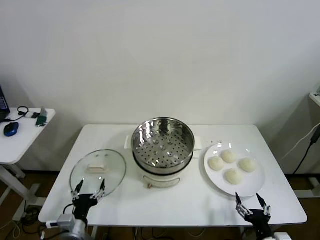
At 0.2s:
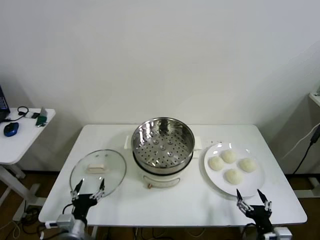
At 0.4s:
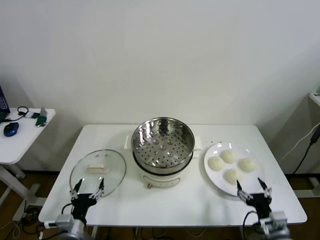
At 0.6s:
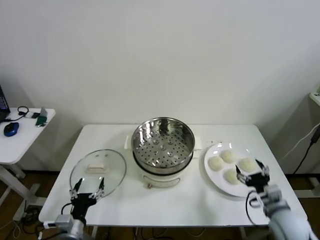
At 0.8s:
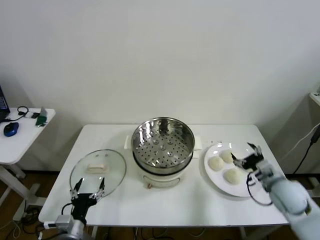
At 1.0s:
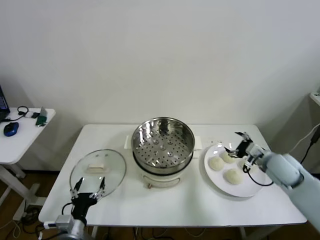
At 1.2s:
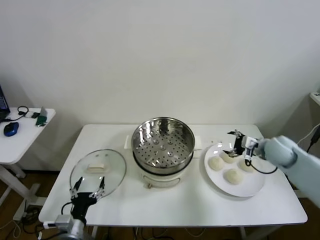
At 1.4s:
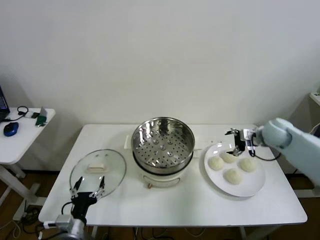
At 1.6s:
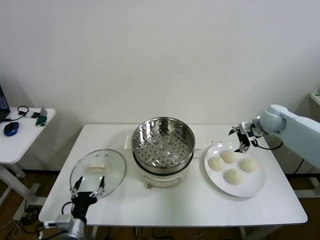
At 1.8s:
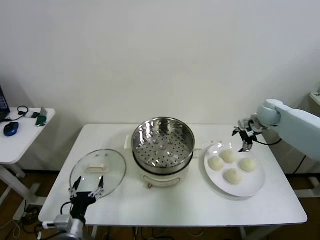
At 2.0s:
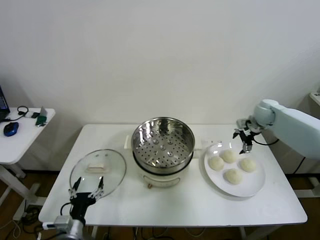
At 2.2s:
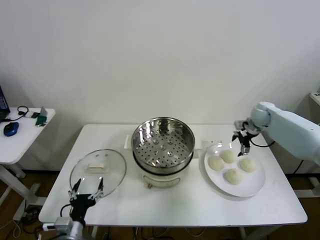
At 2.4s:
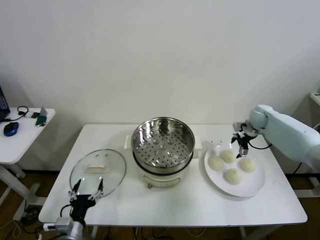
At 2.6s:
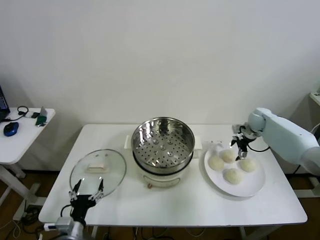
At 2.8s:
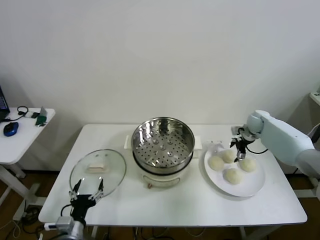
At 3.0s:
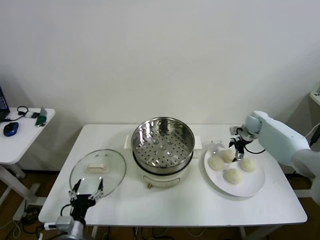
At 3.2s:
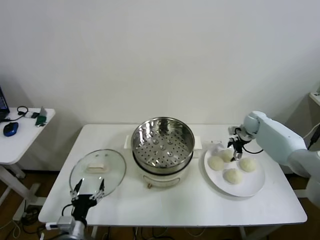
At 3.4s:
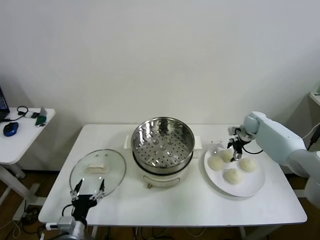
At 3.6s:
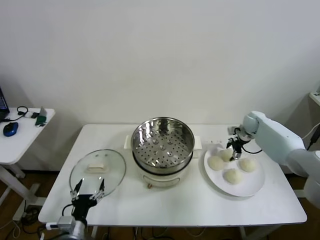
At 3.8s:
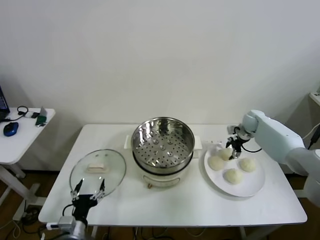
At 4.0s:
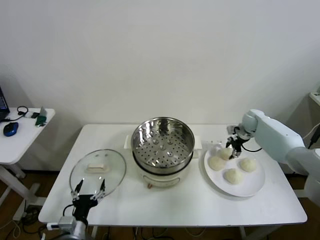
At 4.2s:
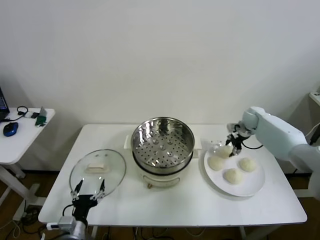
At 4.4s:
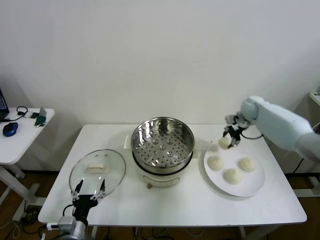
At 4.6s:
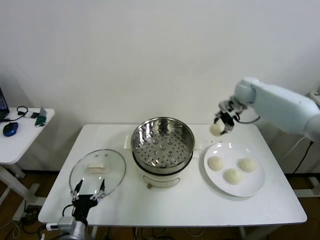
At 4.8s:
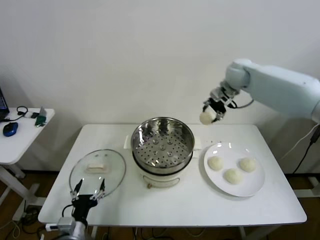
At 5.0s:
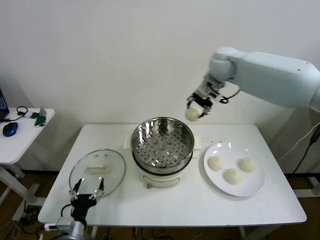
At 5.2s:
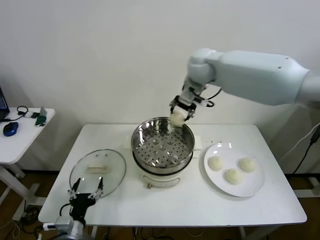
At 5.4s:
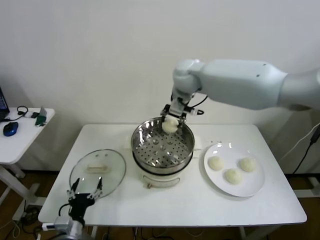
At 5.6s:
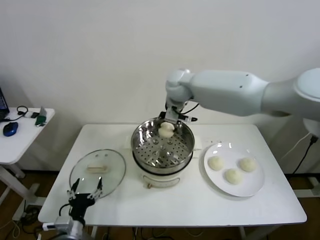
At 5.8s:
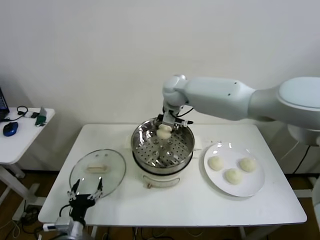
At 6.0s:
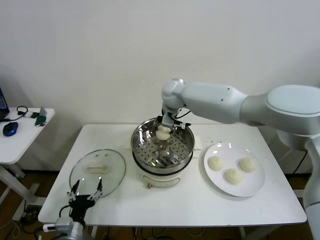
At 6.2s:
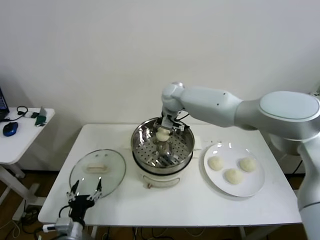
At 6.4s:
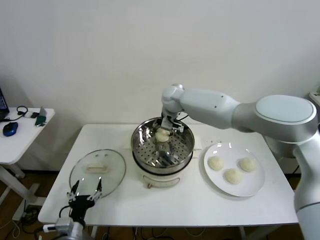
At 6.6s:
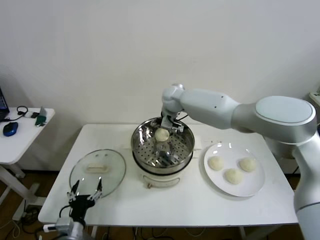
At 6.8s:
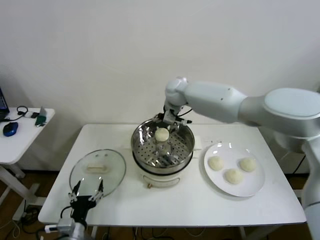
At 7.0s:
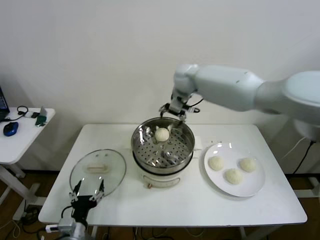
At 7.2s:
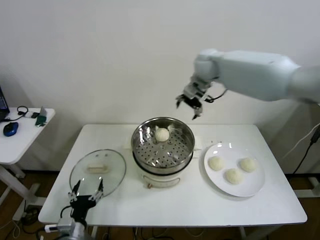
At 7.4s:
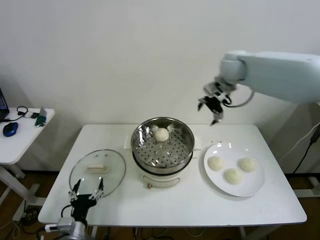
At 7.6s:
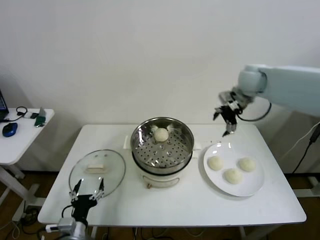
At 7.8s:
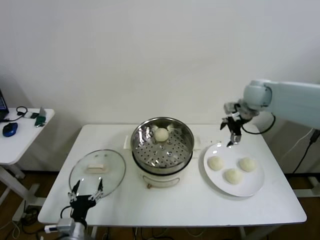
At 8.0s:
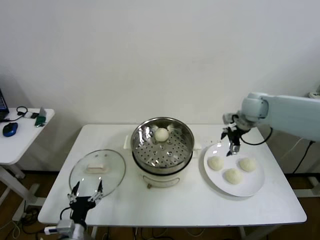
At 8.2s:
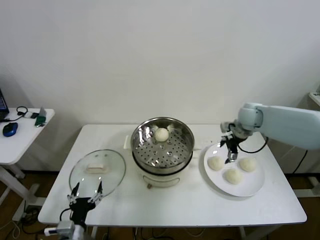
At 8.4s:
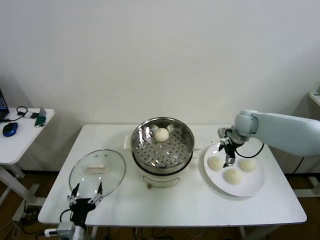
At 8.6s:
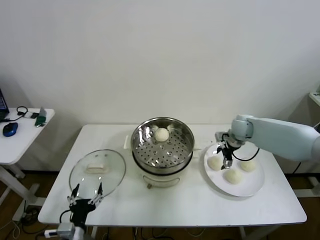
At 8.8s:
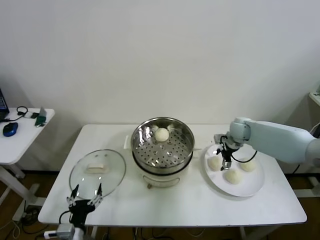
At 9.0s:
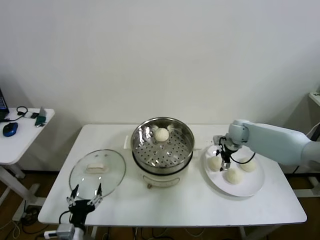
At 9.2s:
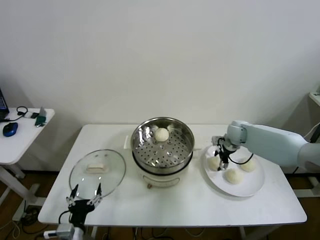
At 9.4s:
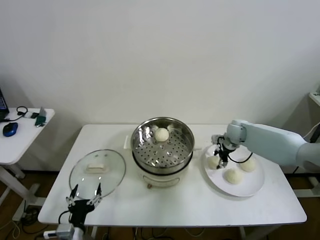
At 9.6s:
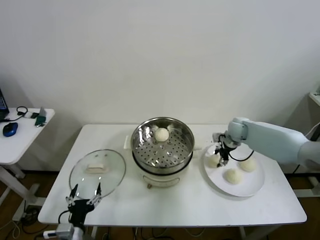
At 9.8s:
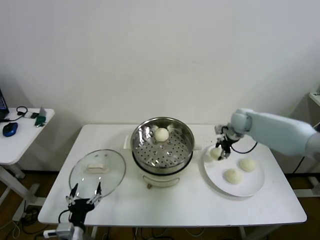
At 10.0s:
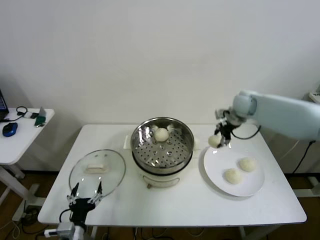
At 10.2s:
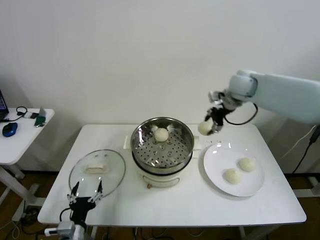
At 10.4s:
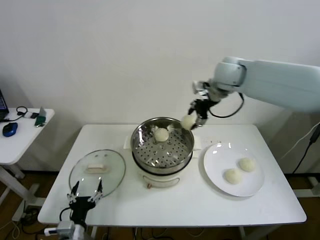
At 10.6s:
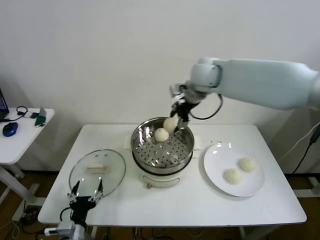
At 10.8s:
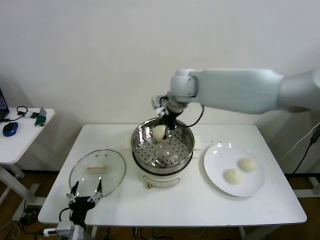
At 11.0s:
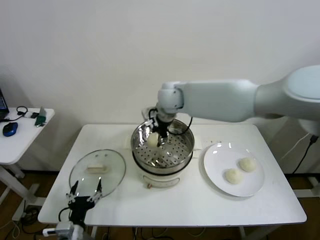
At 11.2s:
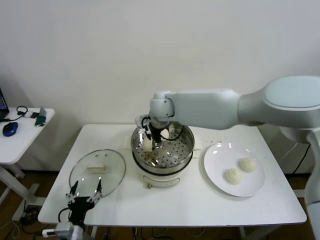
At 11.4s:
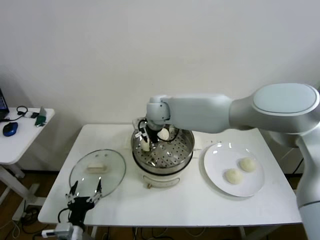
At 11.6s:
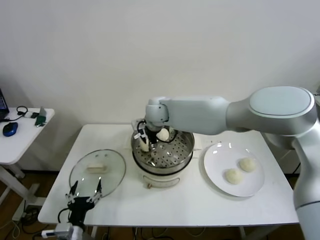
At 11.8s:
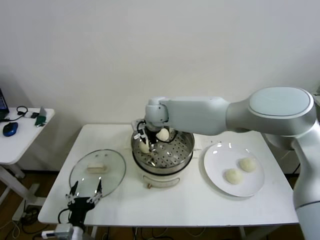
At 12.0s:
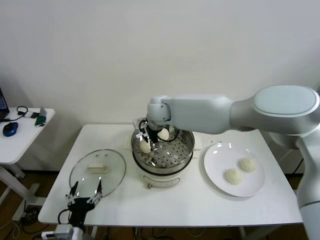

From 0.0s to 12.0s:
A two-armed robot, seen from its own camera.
Step, from 0.0s to 3.8s: Grasp the baozi in the plate with right gripper.
Step, from 4.0s to 6.6s: Place the baozi on the steamer with right gripper.
Step, from 7.0s to 9.2s: Grasp the baozi in the plate with right gripper.
Step, from 9.4s to 11.8s: Place the baozi on the steamer with right gripper.
From 1.6s to 3.0s: The right gripper shifts some 10 cm downward and forward.
From 3.0s to 4.4s: The right gripper goes some 10 cm upward, and closes up.
From 4.4s to 6.0s: The right gripper is displaced to the left by some 30 cm.
From 6.0s to 7.6s: The right gripper is displaced to the right by roughly 25 cm, and opens its fingers.
From 7.6s to 9.0s: The right gripper shifts some 20 cm downward.
From 9.0s to 10.4s: The right gripper goes some 30 cm upward and to the left, and closes up.
From 10.4s to 12.0s: The right gripper goes approximately 20 cm to the left and downward, and opens.

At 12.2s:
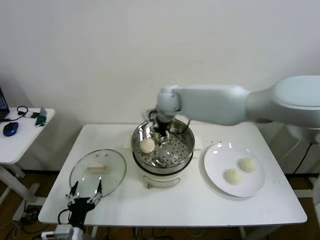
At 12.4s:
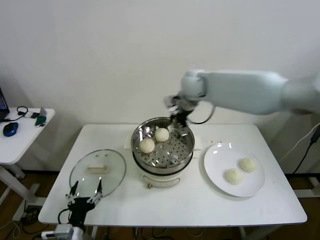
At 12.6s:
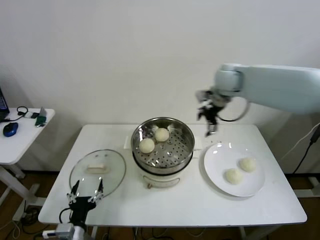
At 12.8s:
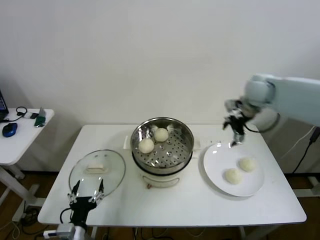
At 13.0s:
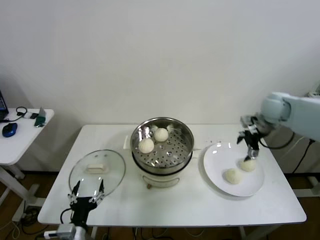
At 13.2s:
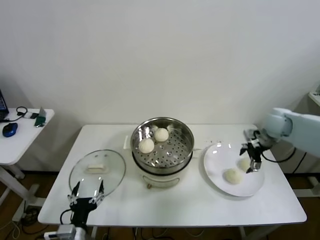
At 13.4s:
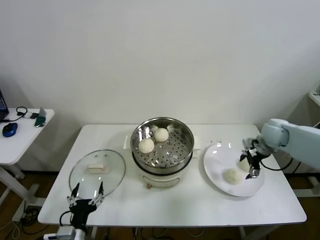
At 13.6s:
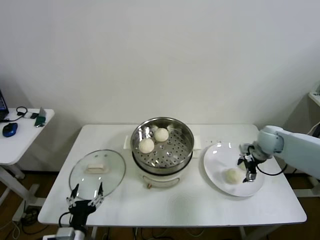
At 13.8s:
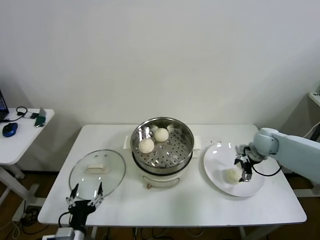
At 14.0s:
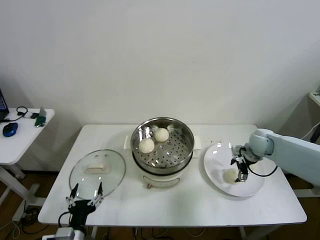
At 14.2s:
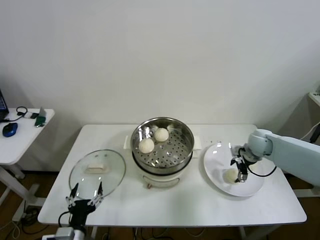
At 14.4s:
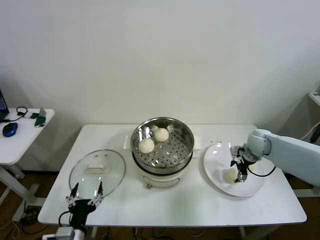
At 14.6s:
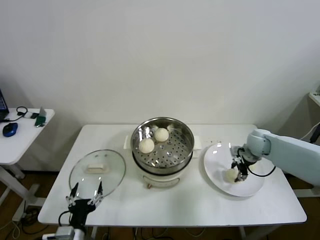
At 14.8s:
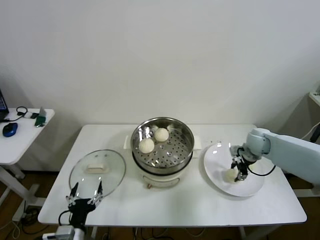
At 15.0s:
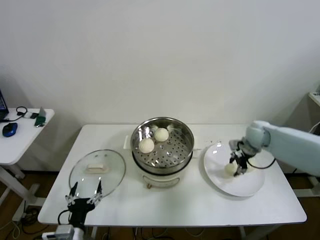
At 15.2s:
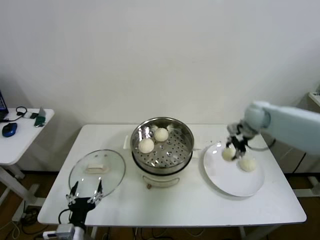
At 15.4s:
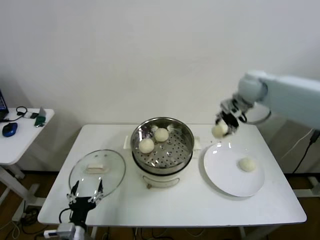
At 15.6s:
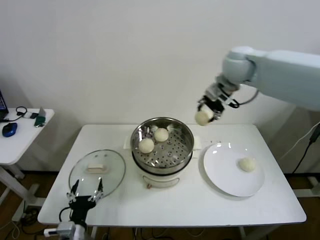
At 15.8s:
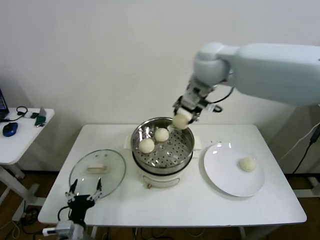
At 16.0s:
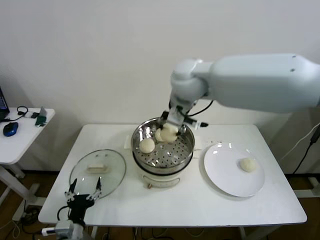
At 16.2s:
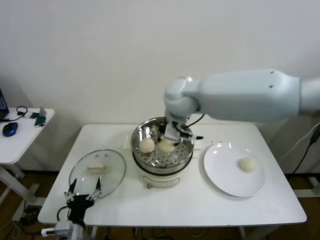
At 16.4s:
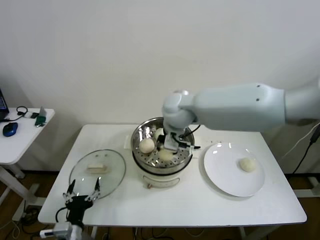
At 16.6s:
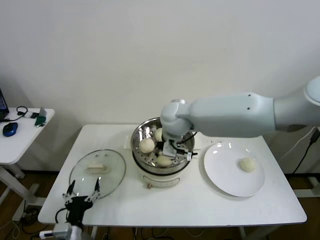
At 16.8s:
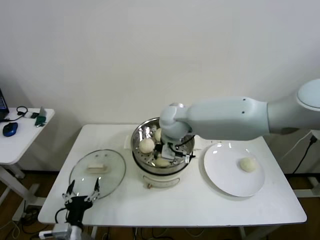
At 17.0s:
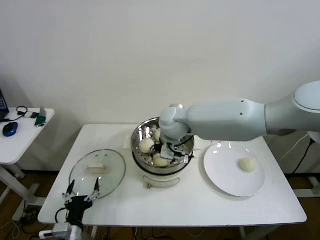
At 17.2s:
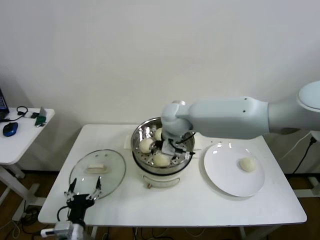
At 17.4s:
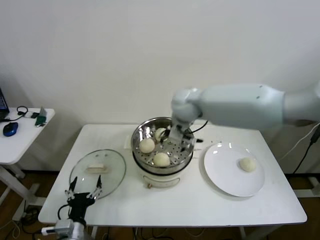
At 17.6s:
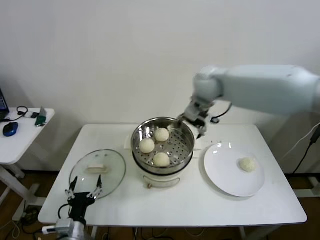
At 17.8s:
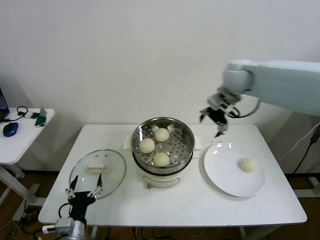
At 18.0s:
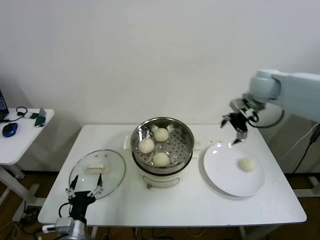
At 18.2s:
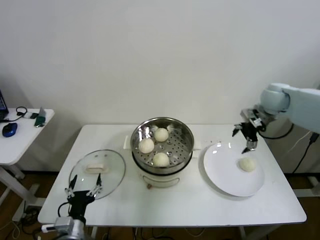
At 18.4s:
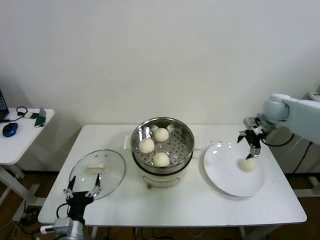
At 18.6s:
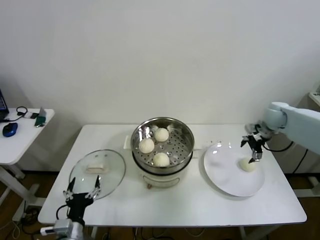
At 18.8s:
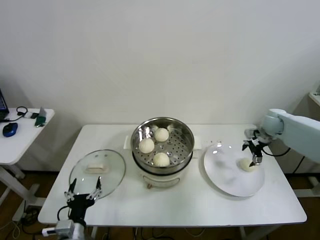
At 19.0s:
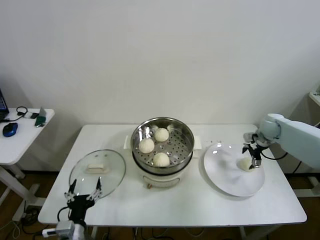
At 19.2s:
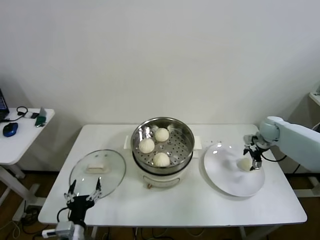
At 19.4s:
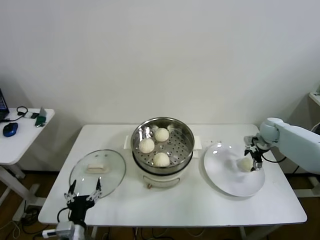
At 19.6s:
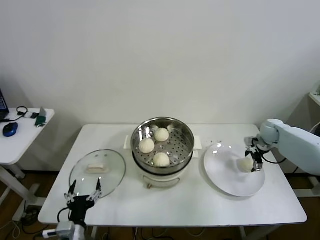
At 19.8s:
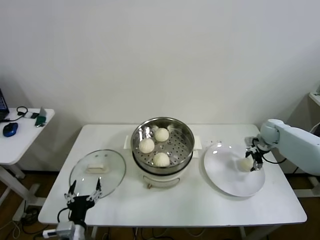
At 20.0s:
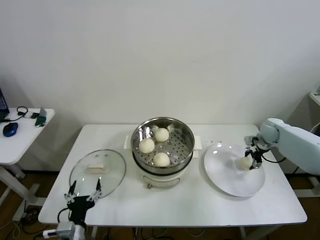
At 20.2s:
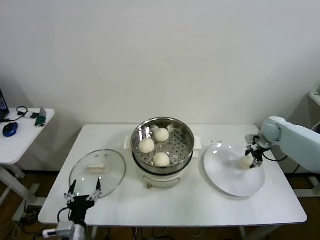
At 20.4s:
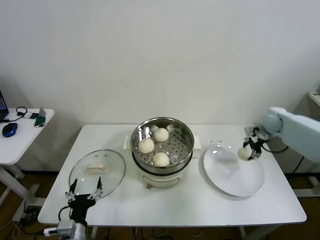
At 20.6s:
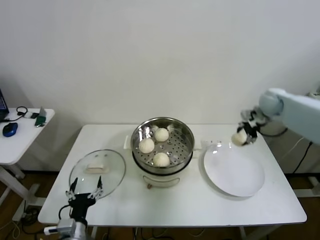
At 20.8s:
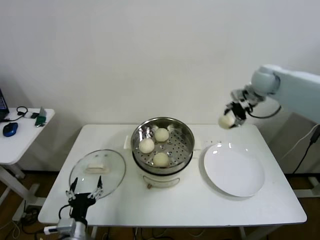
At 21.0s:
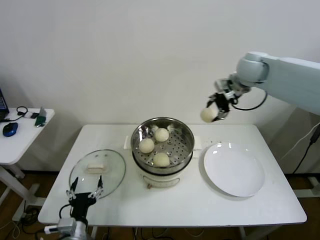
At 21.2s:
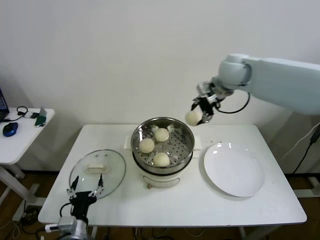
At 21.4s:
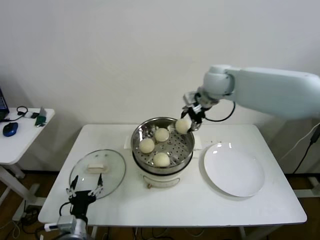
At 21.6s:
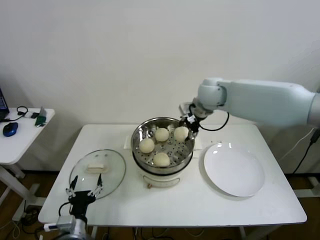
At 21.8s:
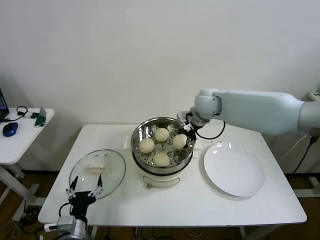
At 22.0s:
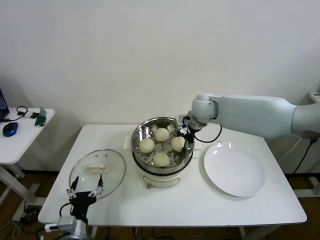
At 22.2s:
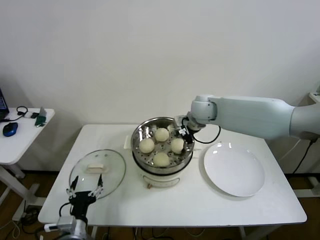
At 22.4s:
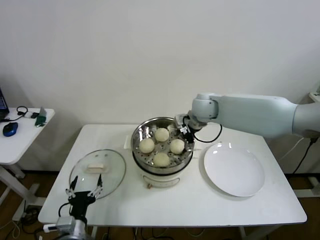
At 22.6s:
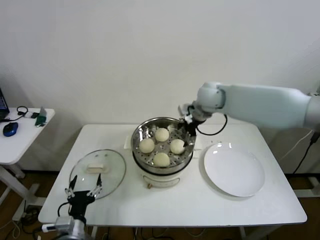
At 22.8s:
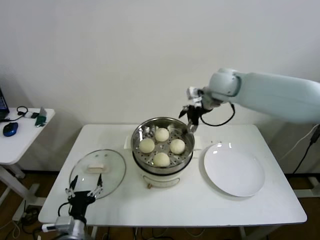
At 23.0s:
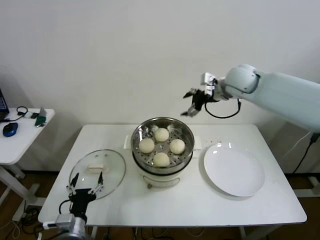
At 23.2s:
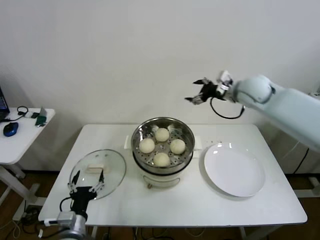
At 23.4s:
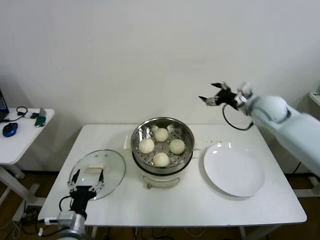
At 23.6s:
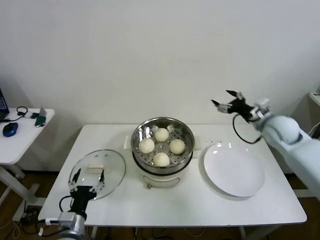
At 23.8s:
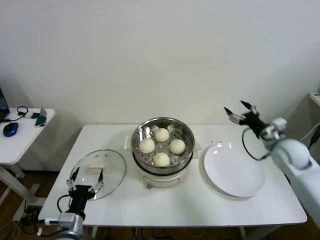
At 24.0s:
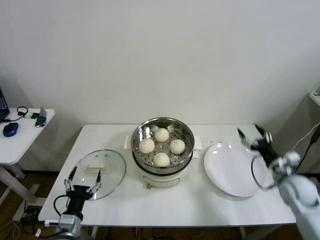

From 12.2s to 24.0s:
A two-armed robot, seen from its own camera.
Step, from 12.2s to 14.6s: Grasp the baozi in the plate with right gripper.
Step, from 14.8s to 17.0s: Place the baozi on the steamer with right gripper.
Step, from 17.2s to 19.6s: Grasp the baozi in the plate with right gripper.
Step, from 19.8s to 22.2s: Place the baozi on the steamer with right gripper.
From 12.2s to 13.6s: The right gripper is displaced to the right and downward by some 40 cm.
From 13.6s to 15.2s: The right gripper moves upward, to the left and forward, approximately 15 cm, and closes its fingers.
From 15.2s to 16.6s: The right gripper moves to the left, about 30 cm.
From 16.6s to 18.2s: The right gripper travels to the right by about 35 cm, and opens up.
From 18.2s to 19.6s: The right gripper is displaced downward and to the right by some 20 cm.
From 19.6s to 21.0s: The right gripper travels upward and to the left by about 35 cm, and closes up.
From 21.0s to 22.6s: The right gripper heads to the left and downward, covering roughly 15 cm, and opens up.
From 22.6s to 24.0s: The right gripper moves to the right, downward and backward, approximately 40 cm.
